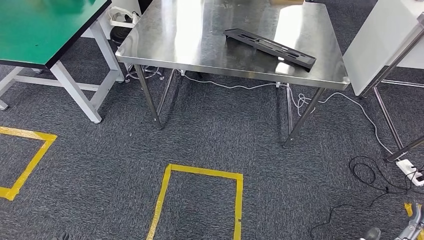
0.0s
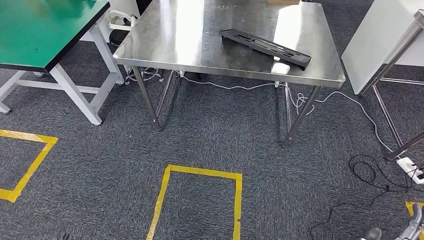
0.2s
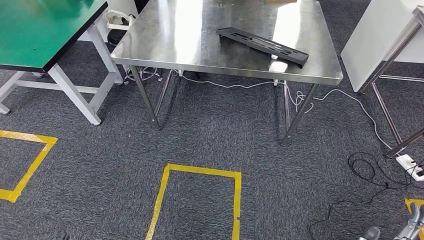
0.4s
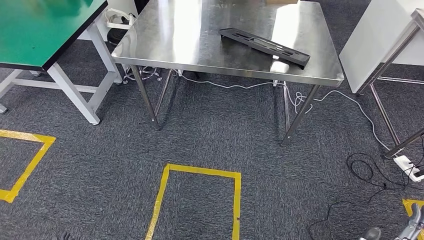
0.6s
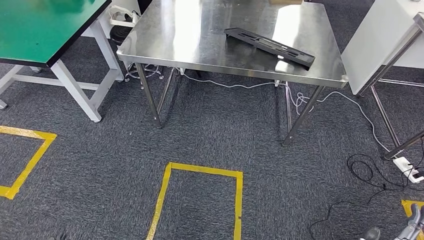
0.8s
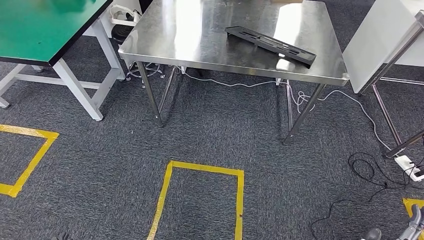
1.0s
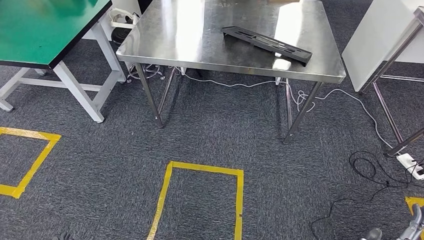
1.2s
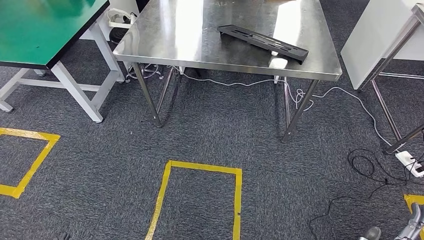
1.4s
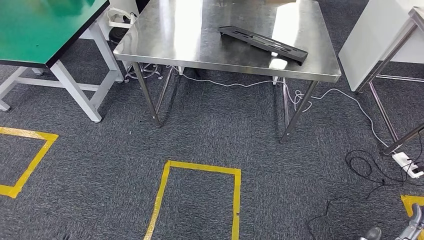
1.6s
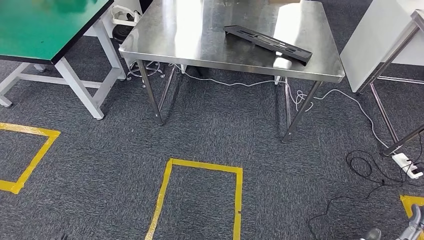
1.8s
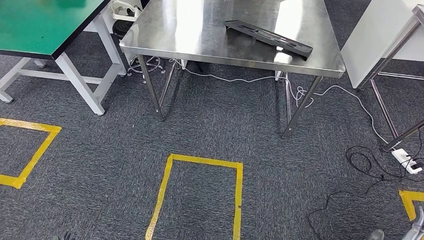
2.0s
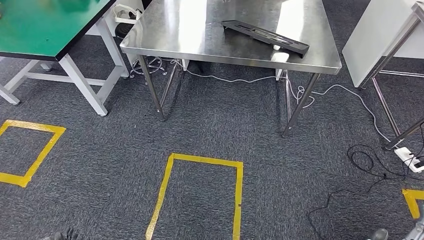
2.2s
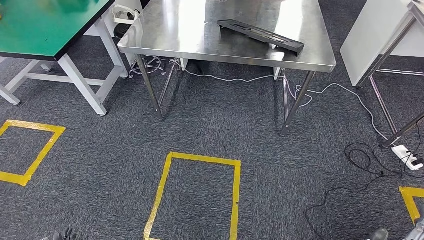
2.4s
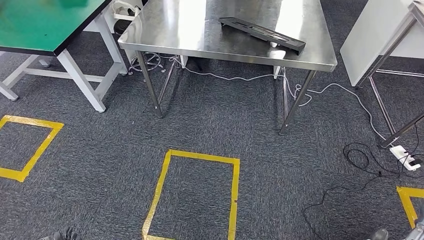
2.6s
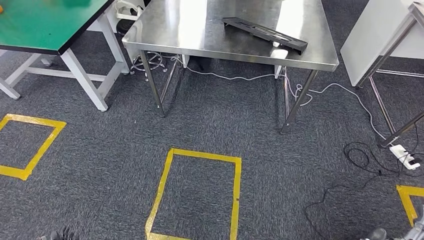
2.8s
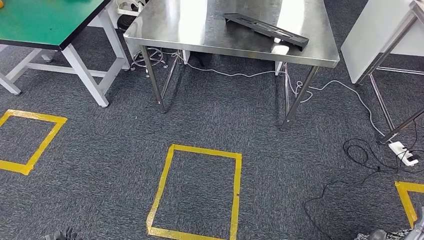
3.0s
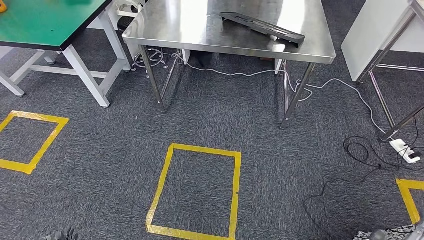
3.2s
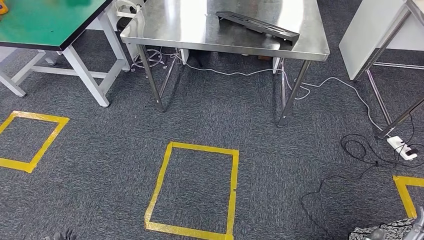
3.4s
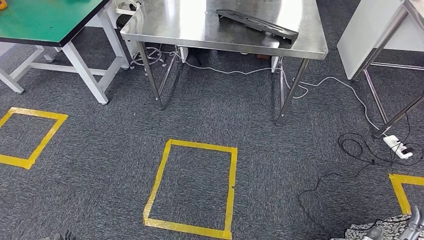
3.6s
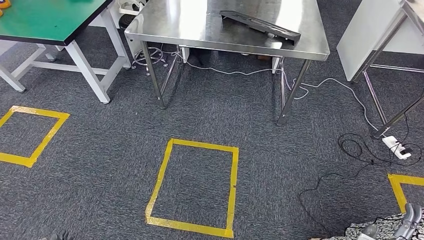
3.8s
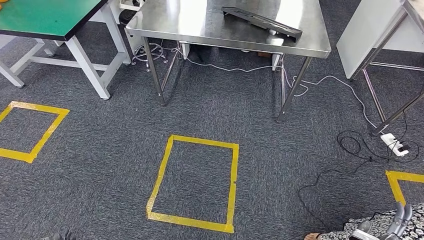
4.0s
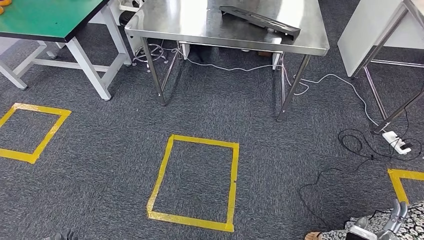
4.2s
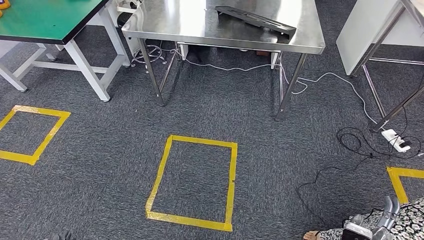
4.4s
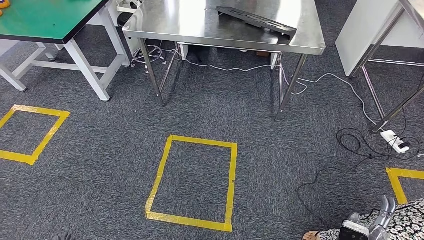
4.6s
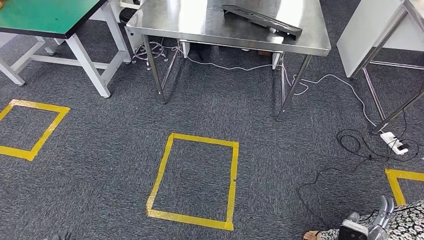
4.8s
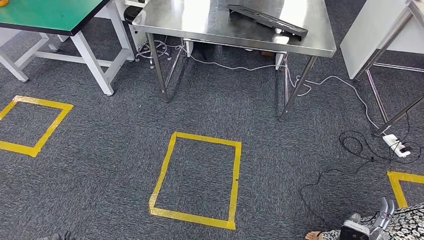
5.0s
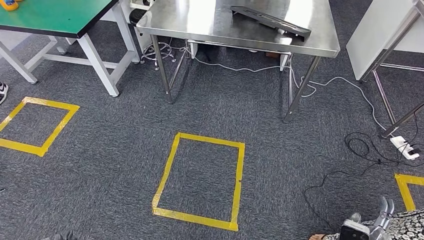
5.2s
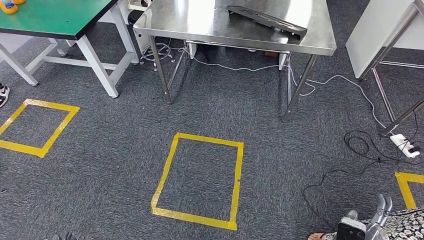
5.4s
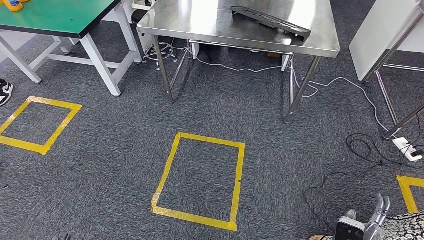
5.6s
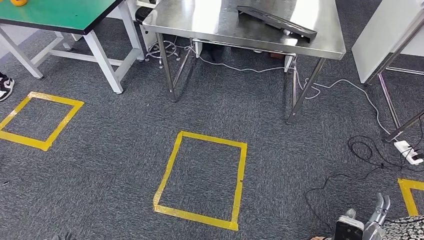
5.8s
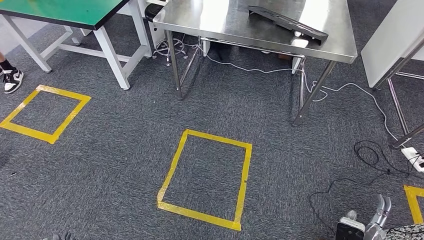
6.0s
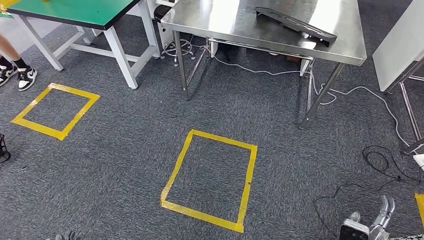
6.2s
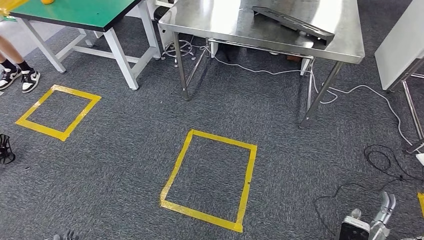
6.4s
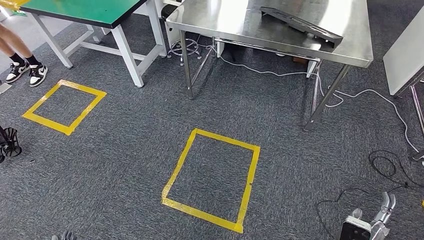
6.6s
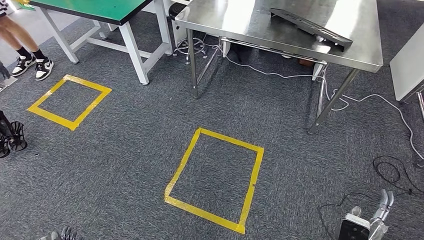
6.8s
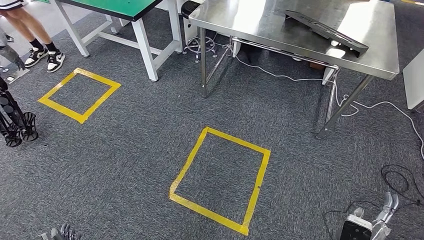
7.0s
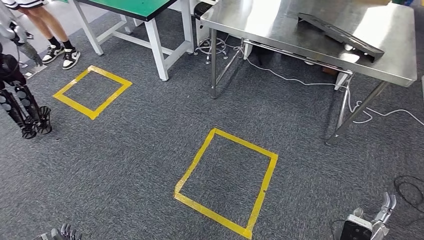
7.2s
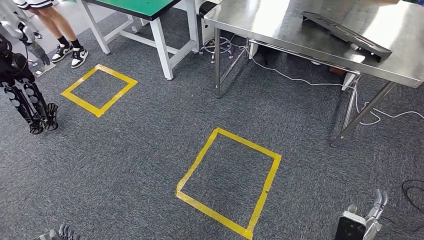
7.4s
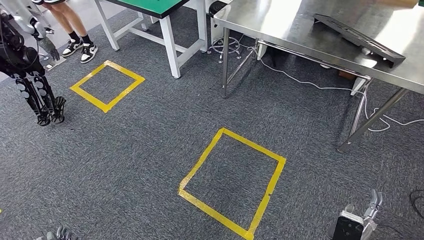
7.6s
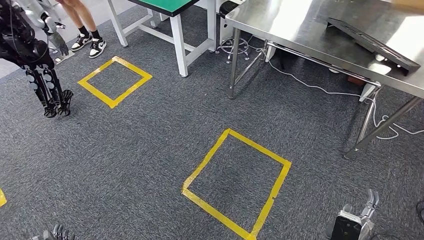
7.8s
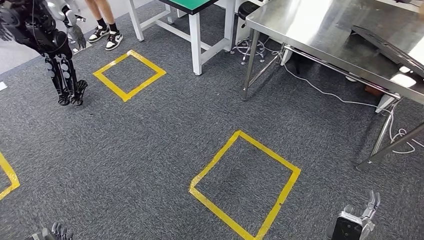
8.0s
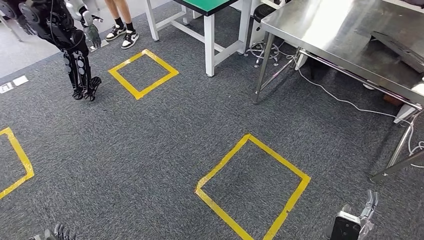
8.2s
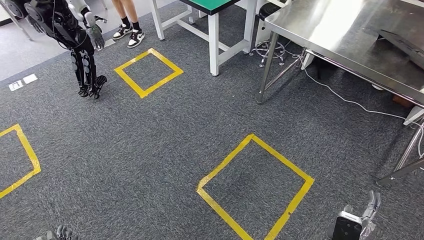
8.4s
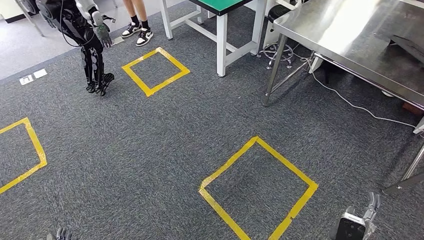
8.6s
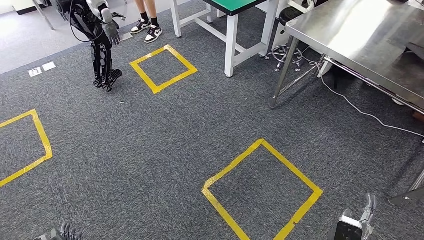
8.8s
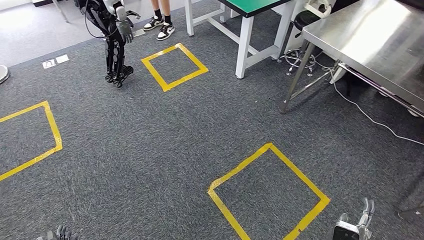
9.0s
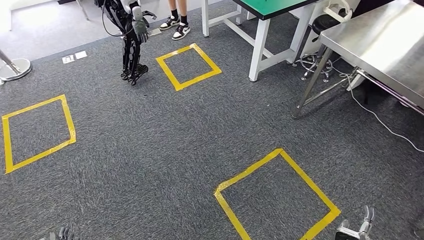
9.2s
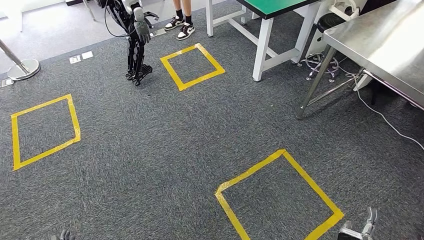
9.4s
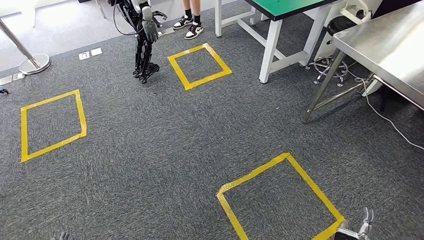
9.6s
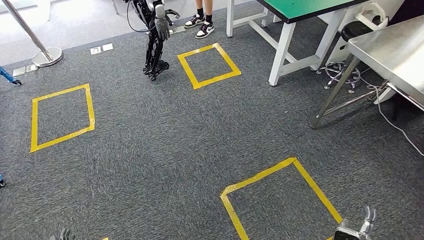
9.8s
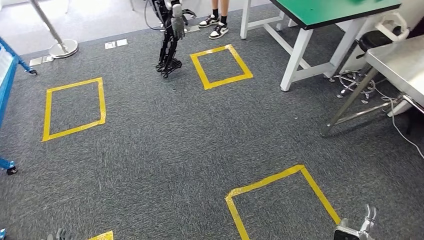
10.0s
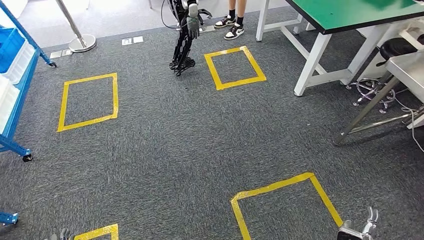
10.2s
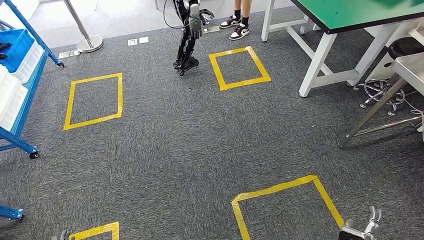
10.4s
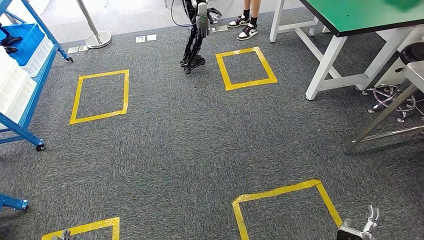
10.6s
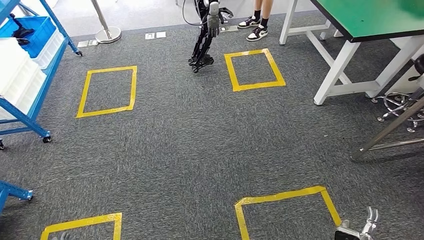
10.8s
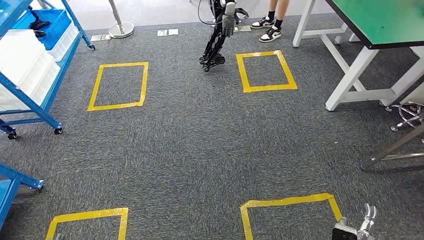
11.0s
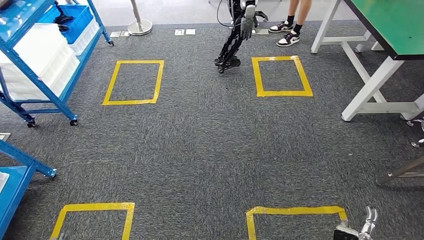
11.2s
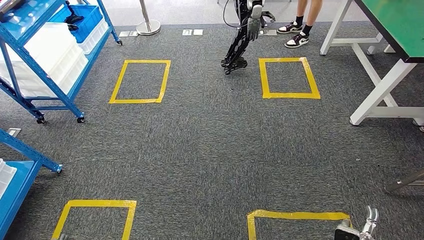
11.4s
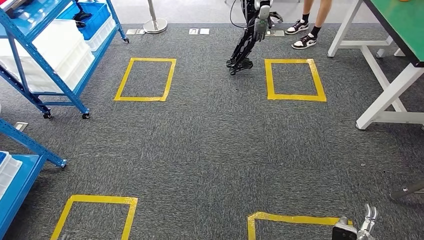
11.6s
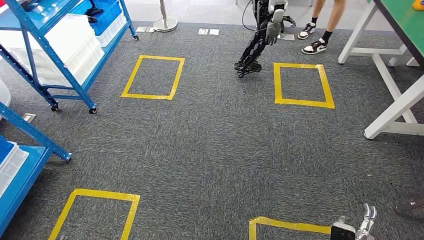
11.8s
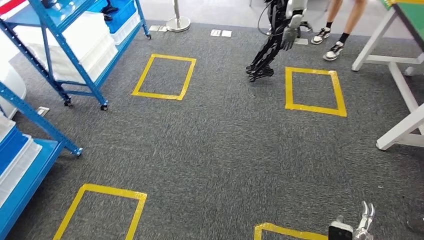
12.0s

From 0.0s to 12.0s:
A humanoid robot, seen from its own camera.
From 0.0s to 1.6s: Neither hand changes place.

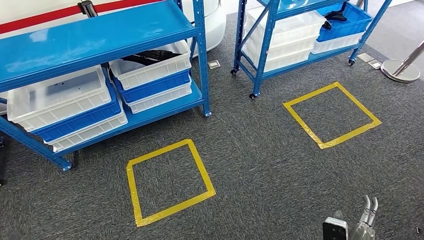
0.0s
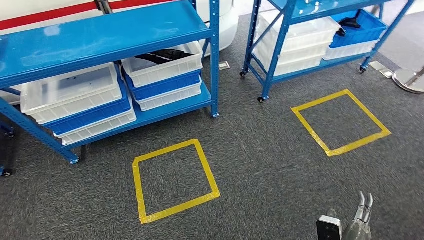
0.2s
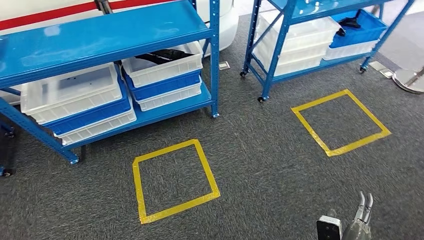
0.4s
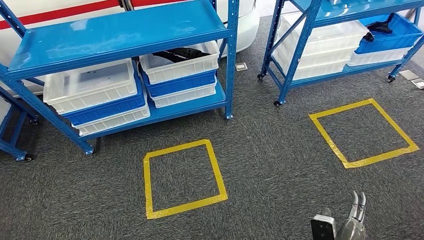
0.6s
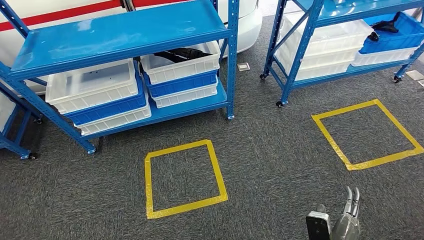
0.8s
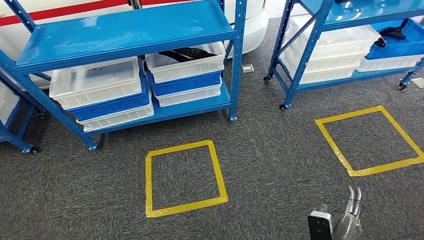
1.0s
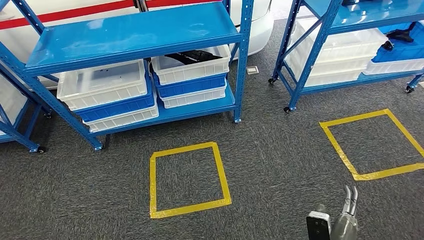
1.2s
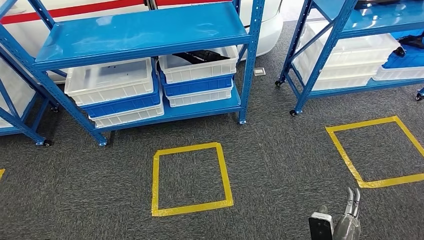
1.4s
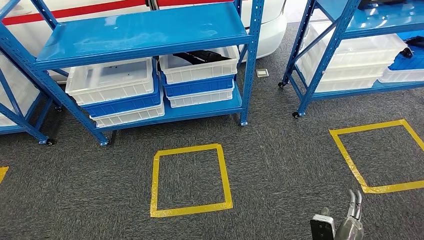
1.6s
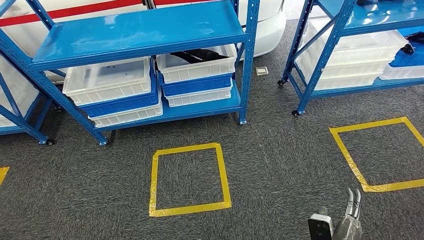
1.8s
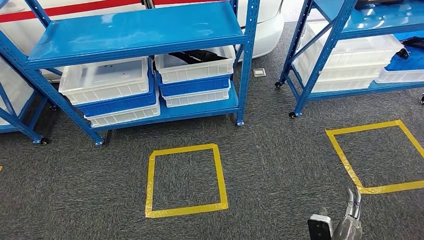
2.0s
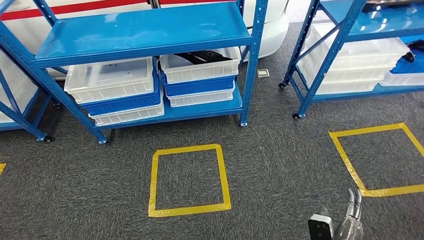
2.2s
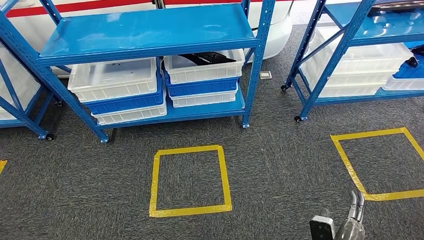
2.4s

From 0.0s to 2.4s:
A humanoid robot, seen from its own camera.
Step, from 0.0s to 2.4s: Move to the initial position of the shelf.
